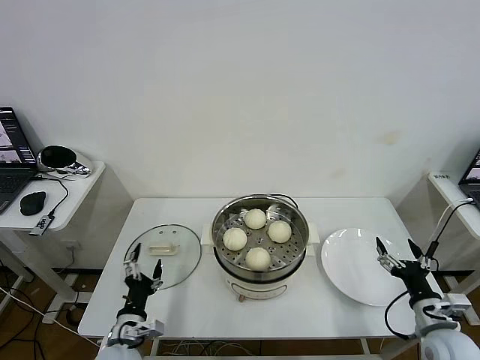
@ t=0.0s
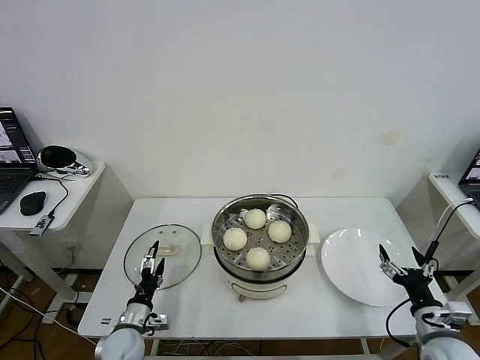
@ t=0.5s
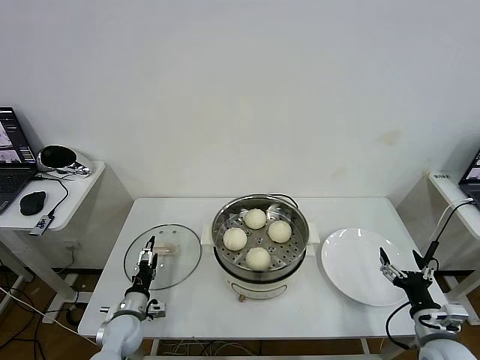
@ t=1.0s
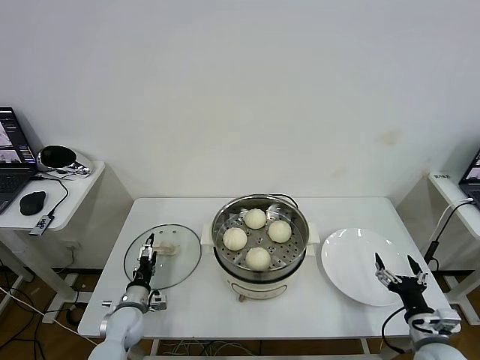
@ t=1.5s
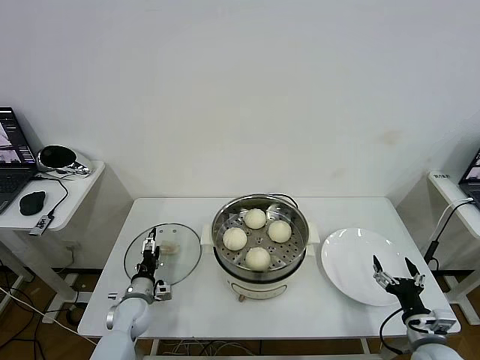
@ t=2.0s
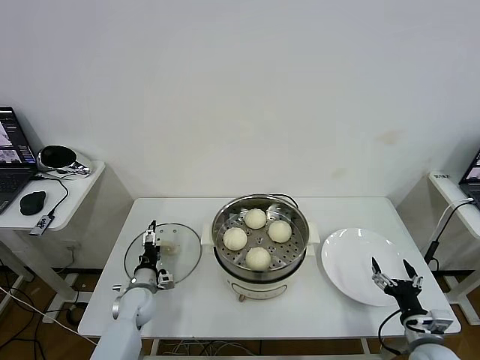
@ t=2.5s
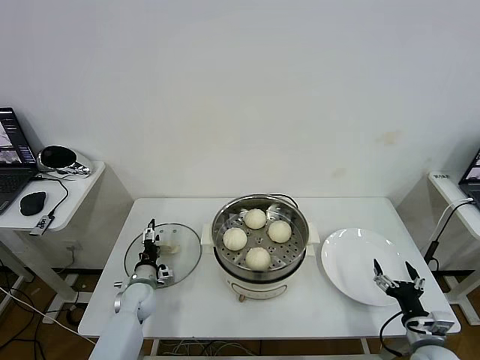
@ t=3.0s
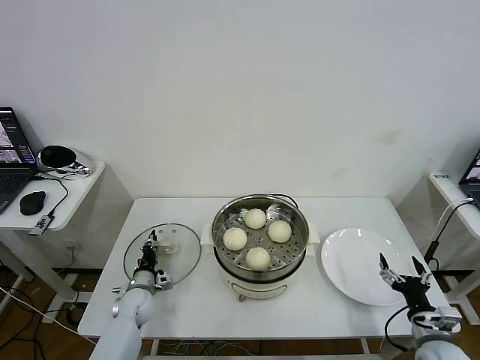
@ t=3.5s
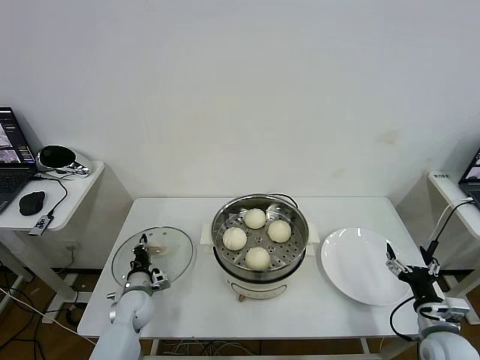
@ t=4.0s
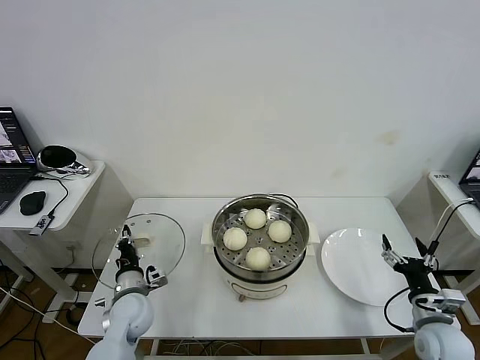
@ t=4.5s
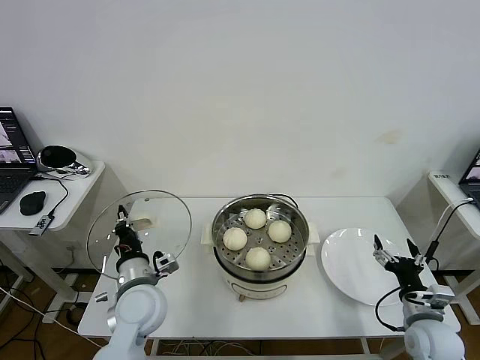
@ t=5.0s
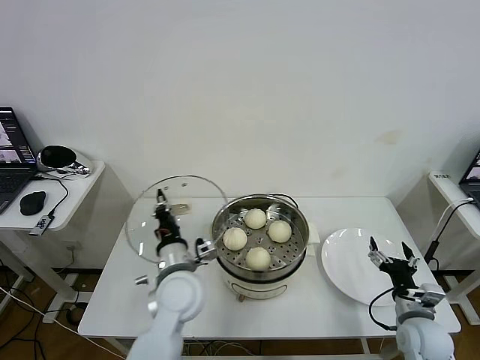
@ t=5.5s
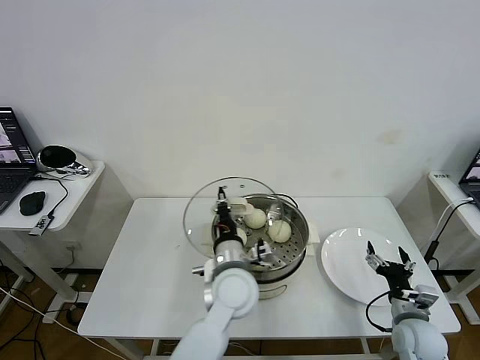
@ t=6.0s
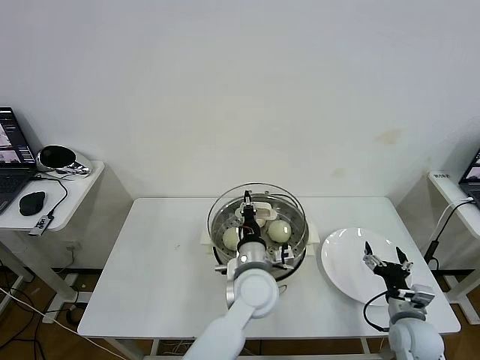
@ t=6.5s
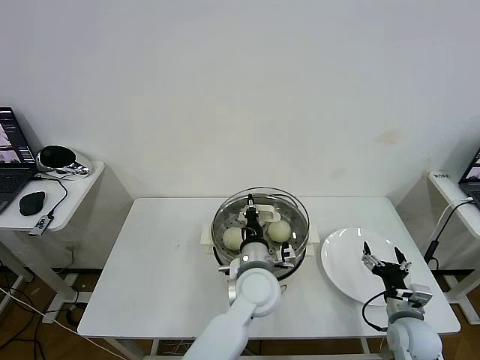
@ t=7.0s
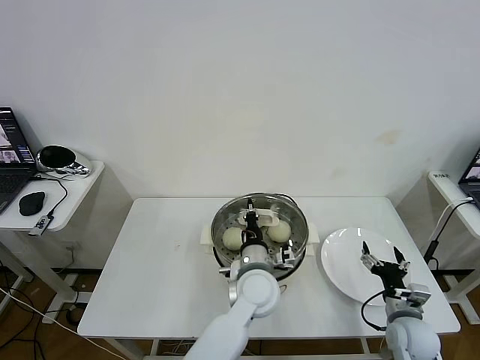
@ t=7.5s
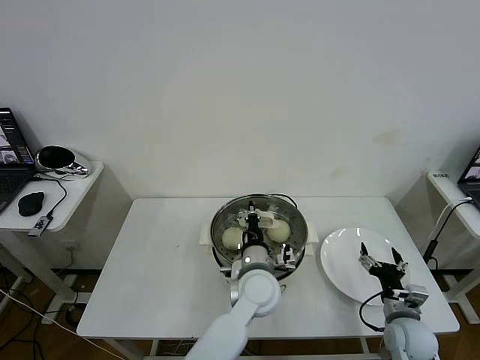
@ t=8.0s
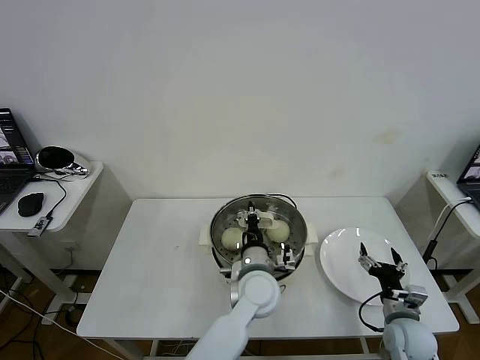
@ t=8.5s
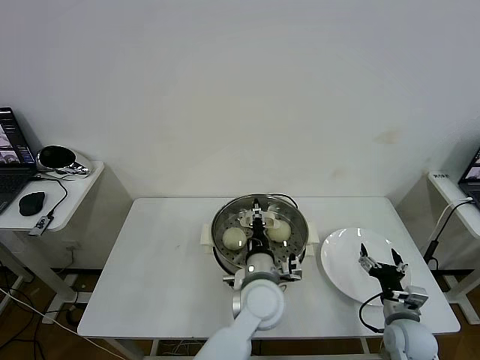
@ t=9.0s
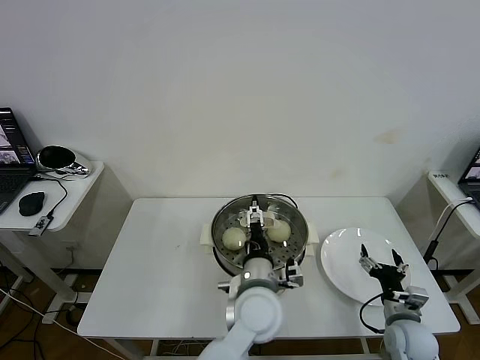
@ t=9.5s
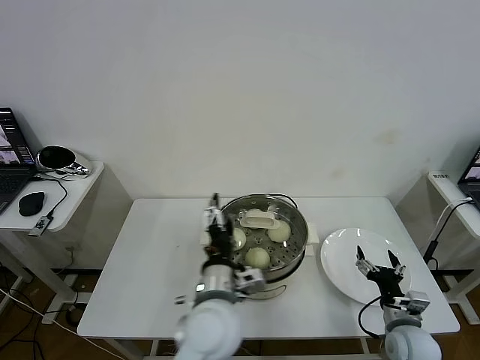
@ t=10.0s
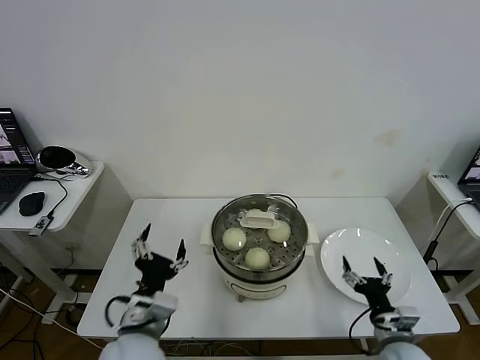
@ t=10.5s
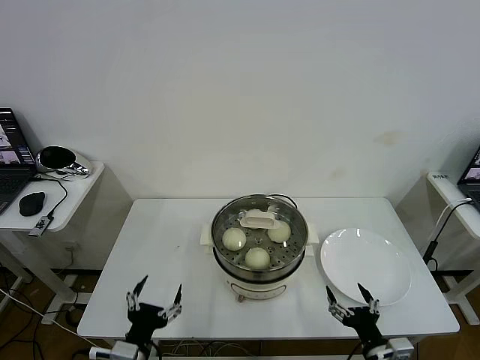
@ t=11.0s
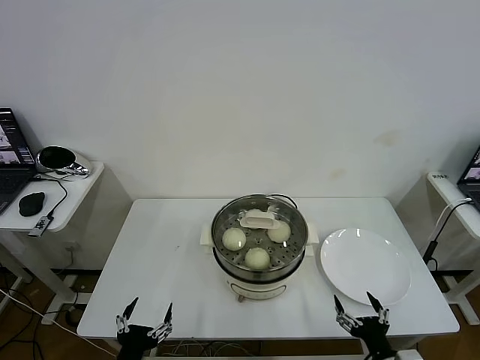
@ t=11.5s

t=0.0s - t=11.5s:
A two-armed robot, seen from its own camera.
Task of the whole recording: take steamed baozi put them in steamer then cover it.
Step, t=0.0s - t=4.0s: Grasp the pot lid with left gripper.
Step, t=4.5s - t=9.5s: Place the pot lid on the steamer with left gripper.
t=0.0s - t=2.0s: The left gripper shifts about 15 cm forward and downward.
t=2.0s - t=4.0s: The left gripper closes.
t=4.0s - t=6.0s: The left gripper shifts some 35 cm to the right and upward. Meanwhile the right gripper moves approximately 5 cm.
t=6.0s - t=7.5s: The left gripper travels to the right by some 5 cm.
t=7.5s - t=9.5s: The left gripper heads backward, covering roughly 5 cm, and opens its fingers.
t=9.5s - t=11.5s: The right gripper goes approximately 15 cm backward; the left gripper goes roughly 35 cm to the left and backward.

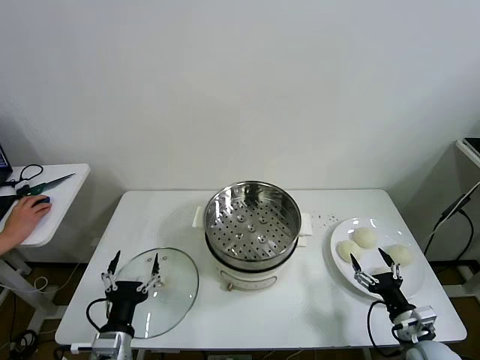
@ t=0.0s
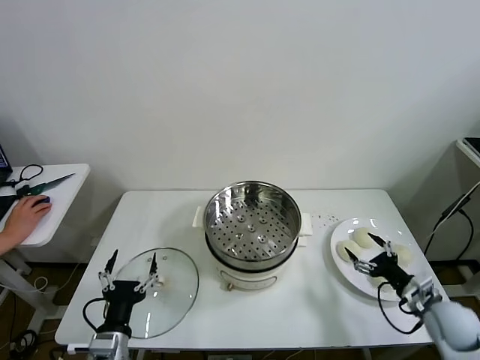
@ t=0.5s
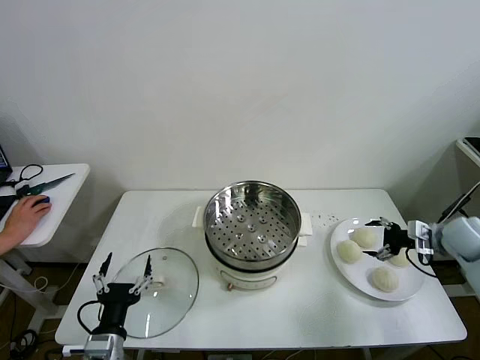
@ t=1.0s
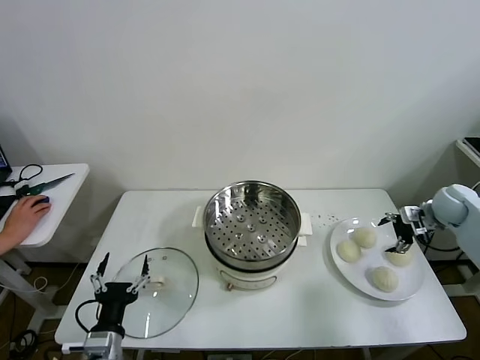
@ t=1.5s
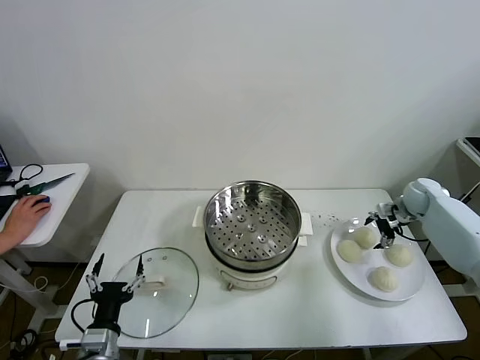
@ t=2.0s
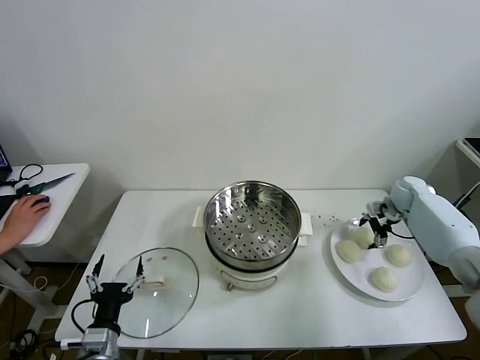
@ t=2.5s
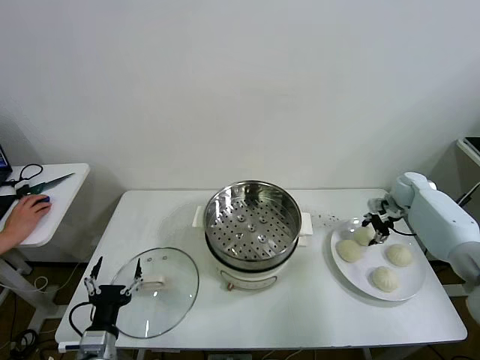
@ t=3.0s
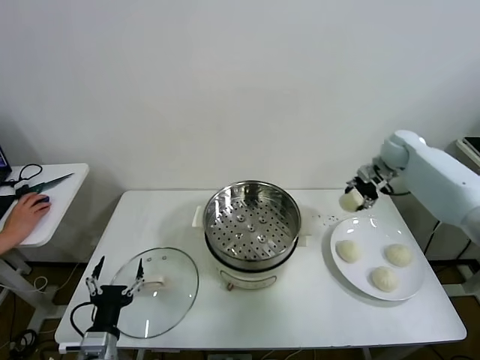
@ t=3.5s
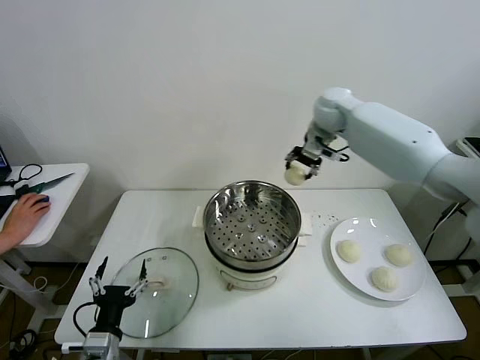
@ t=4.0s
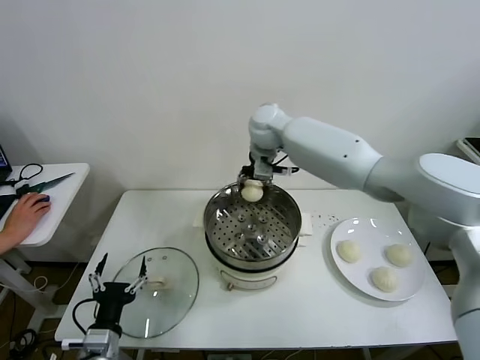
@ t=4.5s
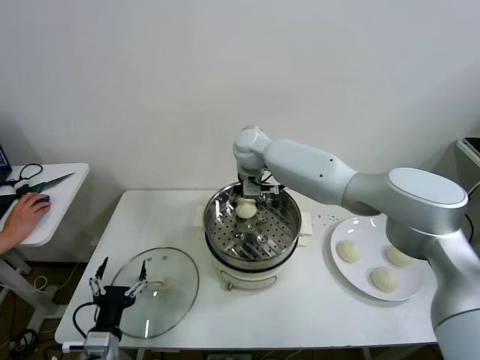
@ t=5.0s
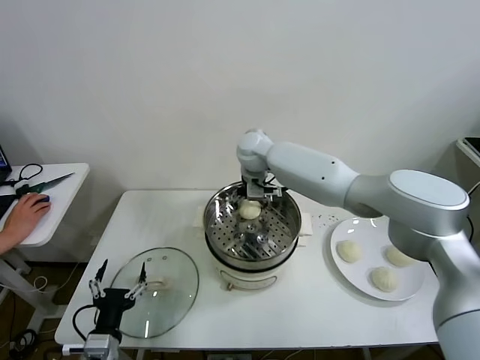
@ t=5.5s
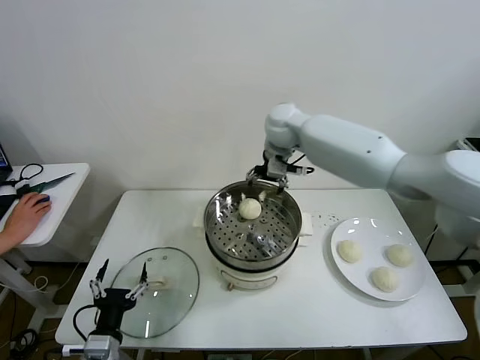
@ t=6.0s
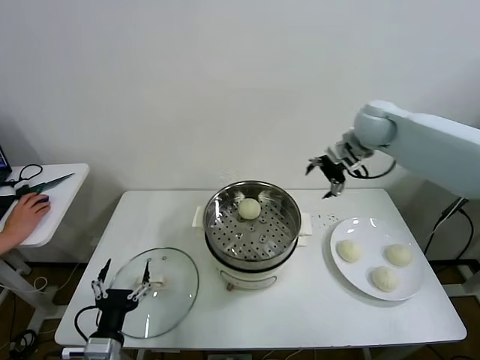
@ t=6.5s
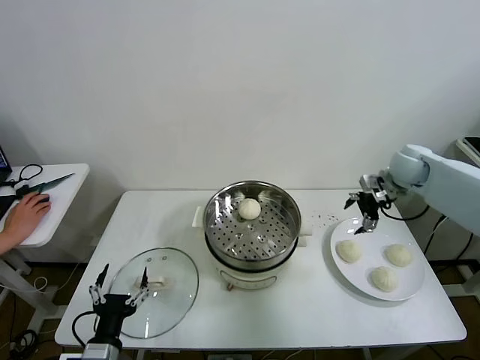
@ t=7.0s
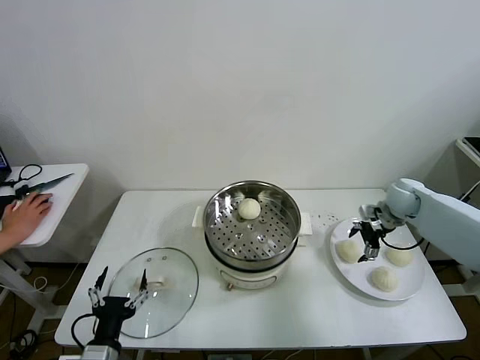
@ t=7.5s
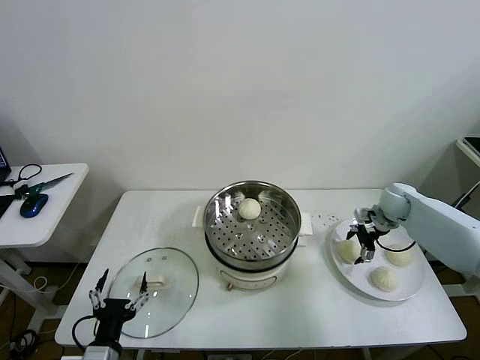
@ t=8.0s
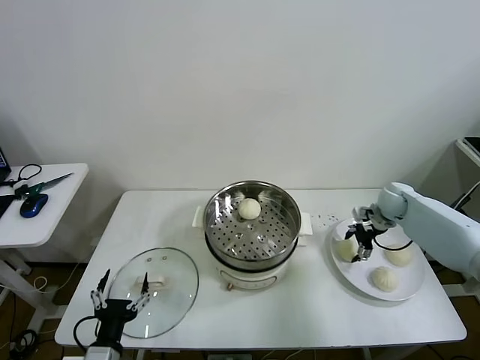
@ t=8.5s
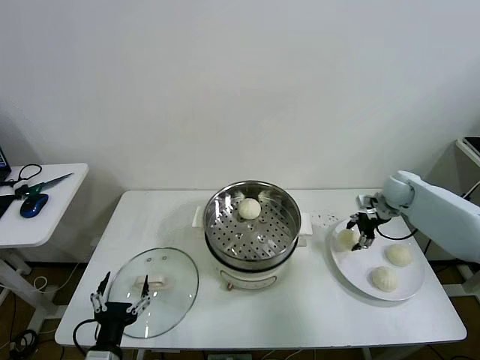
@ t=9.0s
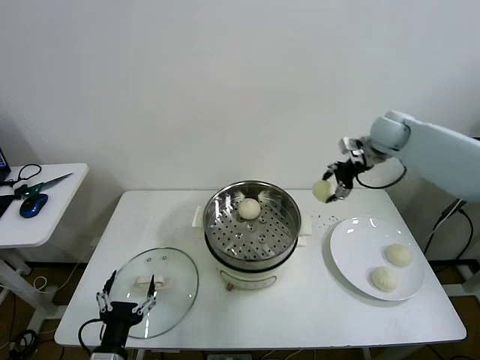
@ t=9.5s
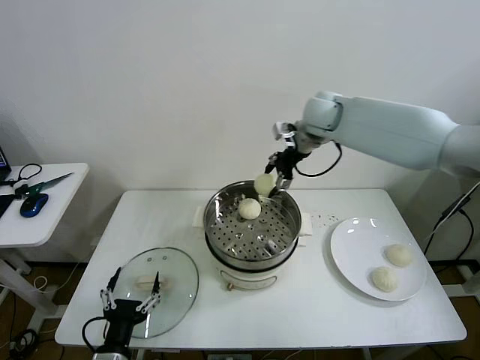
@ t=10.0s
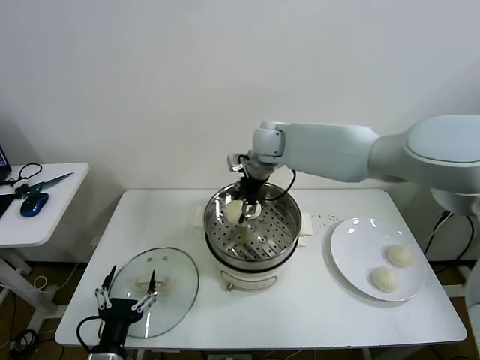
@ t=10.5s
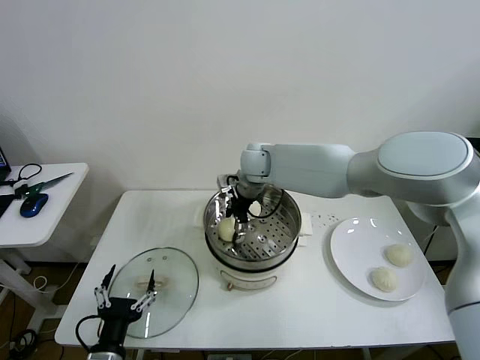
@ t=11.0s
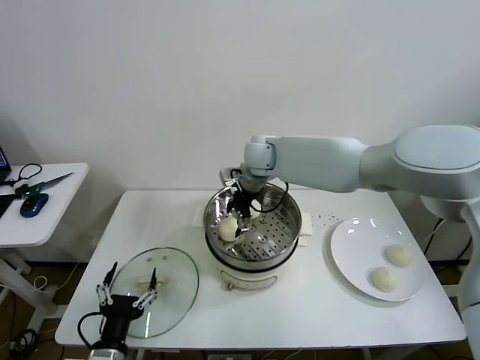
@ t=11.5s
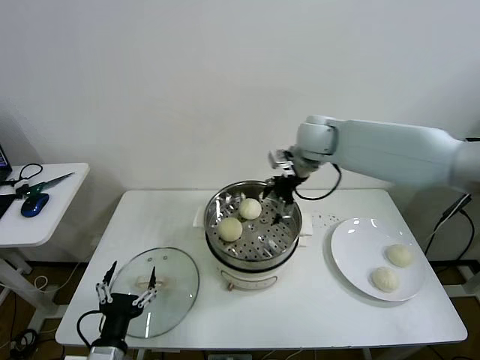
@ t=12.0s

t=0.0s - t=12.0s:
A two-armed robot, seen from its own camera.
Task of the whole recording: take steamed baozi put them in steamer then cover it.
Step, t=0.0s - t=2.5s: Grasp the baozi in the plate with right gripper.
Step, t=3.0s - t=5.0s: Place the baozi on the steamer with right gripper.
Step, t=5.5s - t=8.5s: Grasp the baozi in the plate with right gripper.
Step, t=9.0s - t=11.5s: Place the baozi on the steamer with right gripper.
t=2.0s - t=4.0s: The right gripper shifts some 40 cm to the left and upward, and closes its fingers.
t=4.0s - t=6.0s: The right gripper travels to the left and back again, approximately 15 cm each way, and opens its fingers.
t=6.0s - t=8.0s: The right gripper is displaced to the right and downward by about 35 cm.
t=8.0s - t=10.0s: The right gripper moves to the left and upward, about 35 cm, and closes.
t=10.0s - t=12.0s: The right gripper goes to the left and returns, approximately 10 cm each way, and opens up.

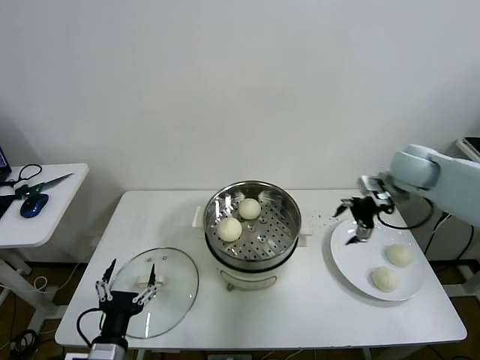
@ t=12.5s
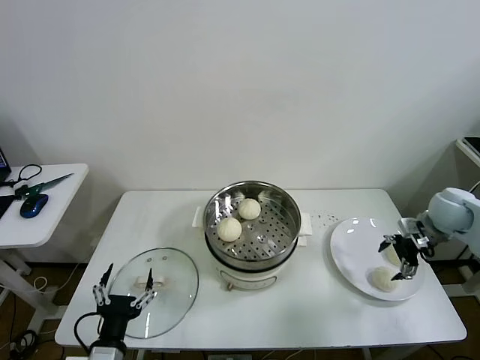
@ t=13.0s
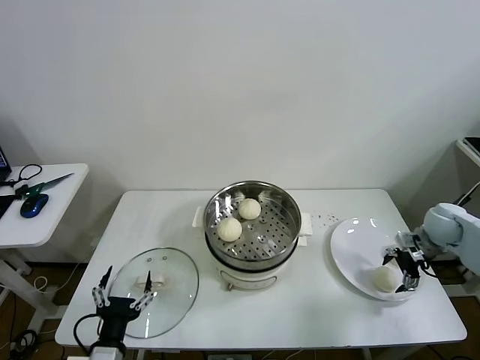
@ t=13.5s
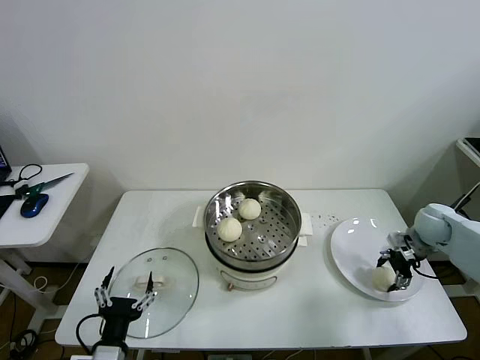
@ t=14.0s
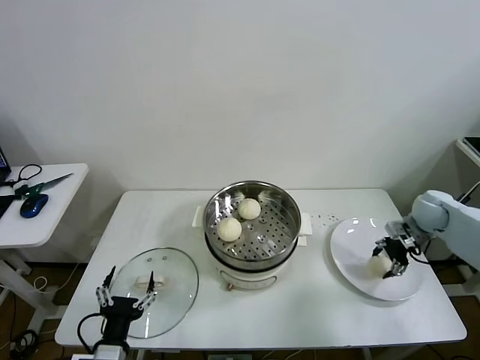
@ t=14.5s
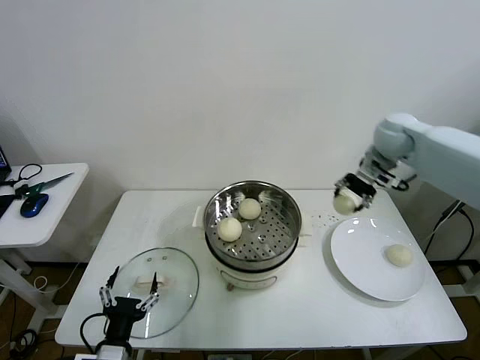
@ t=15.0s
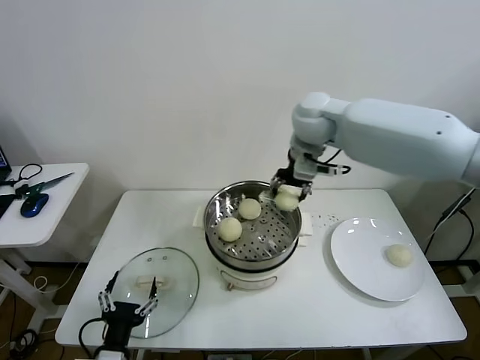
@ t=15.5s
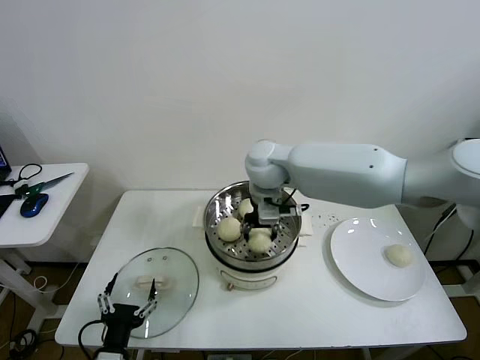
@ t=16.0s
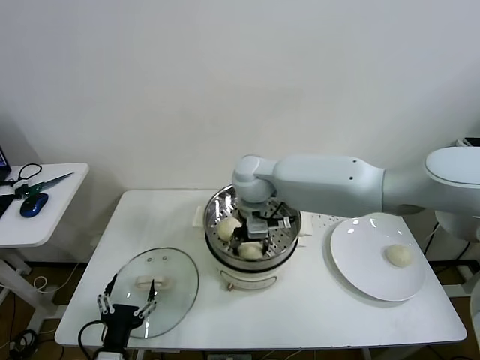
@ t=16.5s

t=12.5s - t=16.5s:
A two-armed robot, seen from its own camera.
Task of the whole recording: take steamed baozi put them in steamer then cover it.
Step, t=12.5s - t=14.0s: Grasp the baozi in the plate with right gripper.
t=12.5s - t=14.5s: The right gripper goes some 15 cm downward and to the right, and closes up.
t=14.5s - t=16.5s: The right gripper travels to the left by some 40 cm, and opens.
